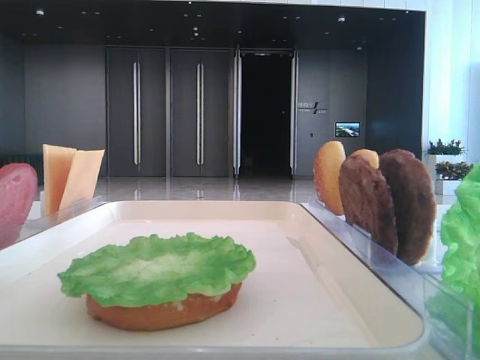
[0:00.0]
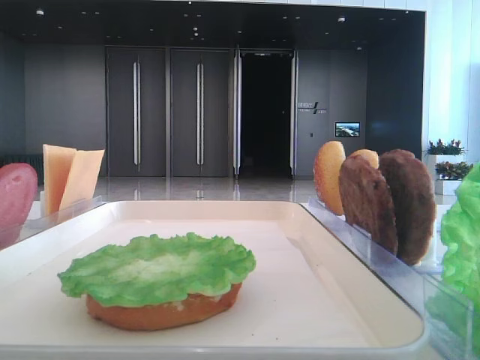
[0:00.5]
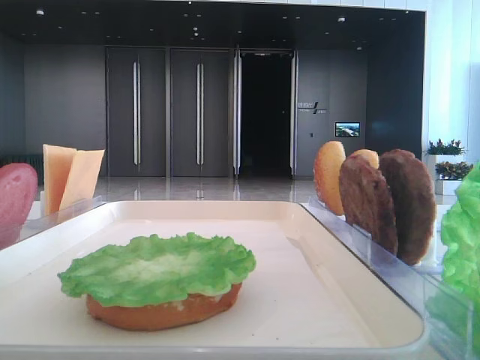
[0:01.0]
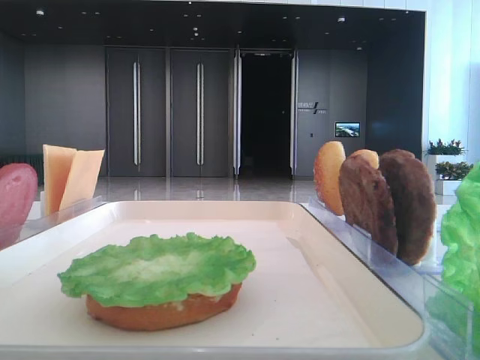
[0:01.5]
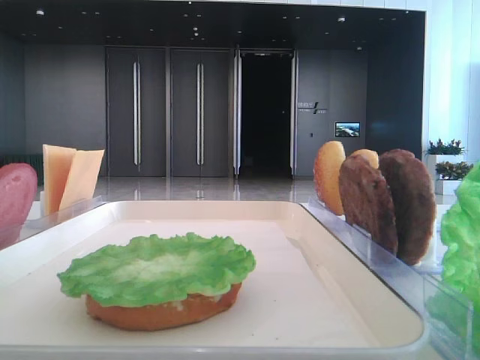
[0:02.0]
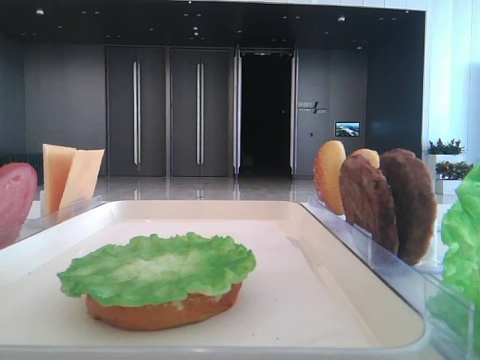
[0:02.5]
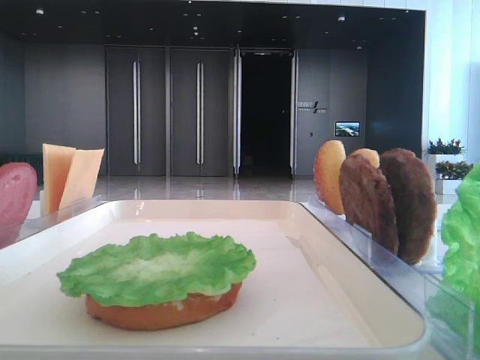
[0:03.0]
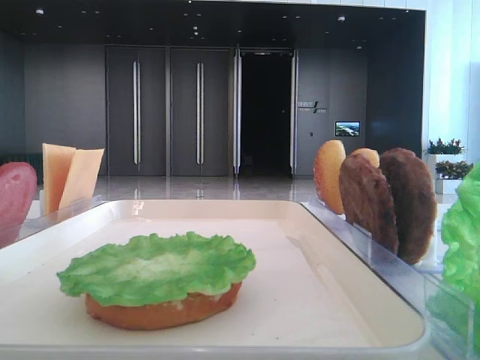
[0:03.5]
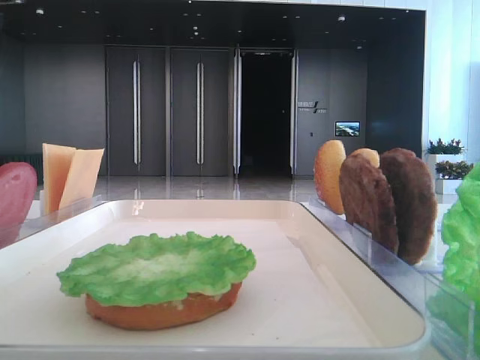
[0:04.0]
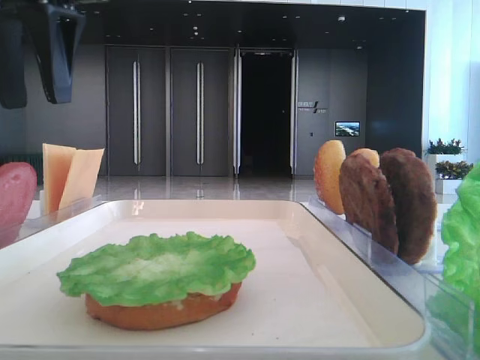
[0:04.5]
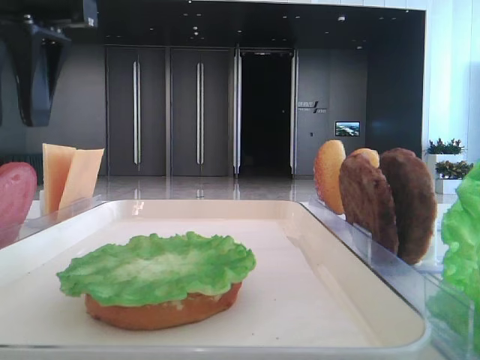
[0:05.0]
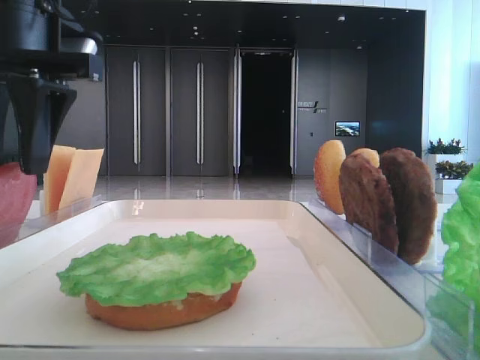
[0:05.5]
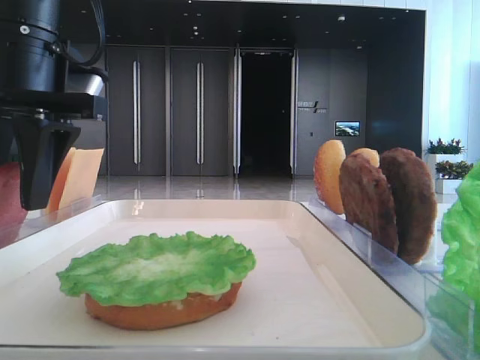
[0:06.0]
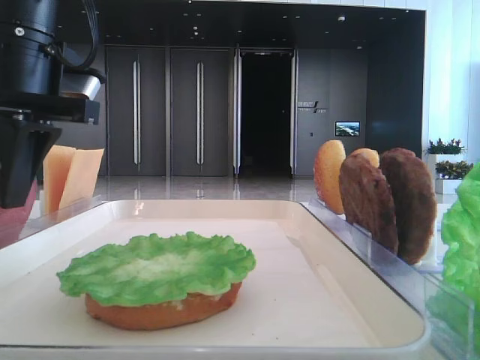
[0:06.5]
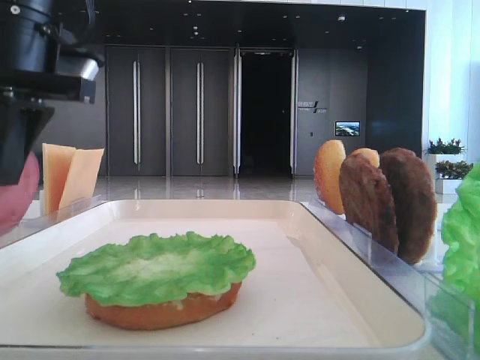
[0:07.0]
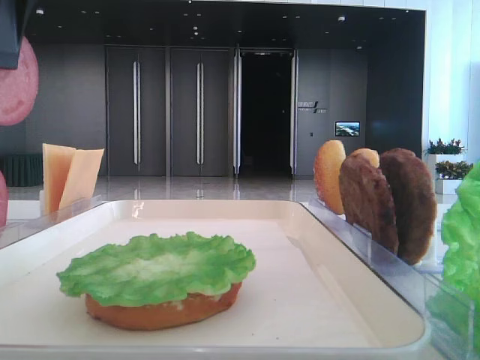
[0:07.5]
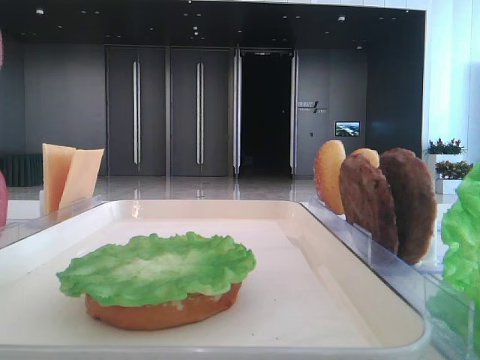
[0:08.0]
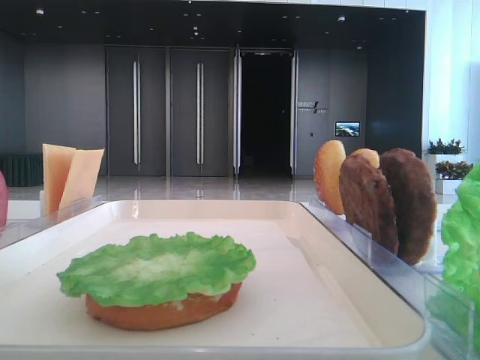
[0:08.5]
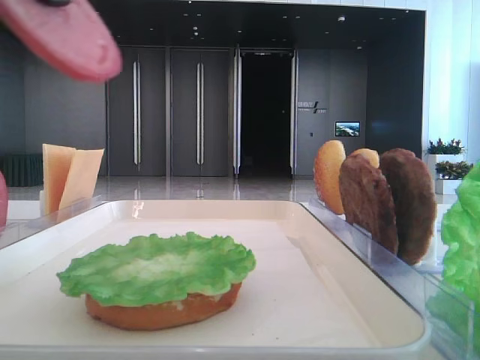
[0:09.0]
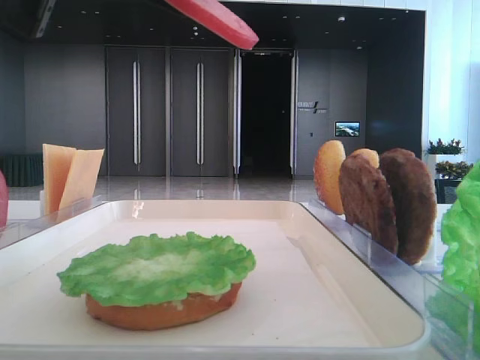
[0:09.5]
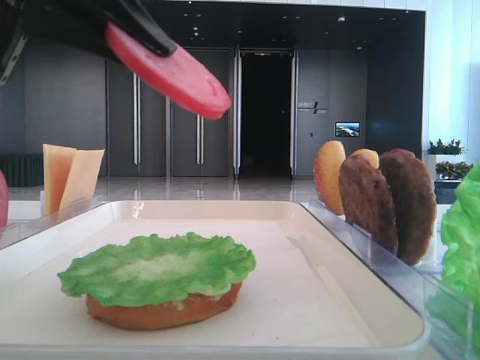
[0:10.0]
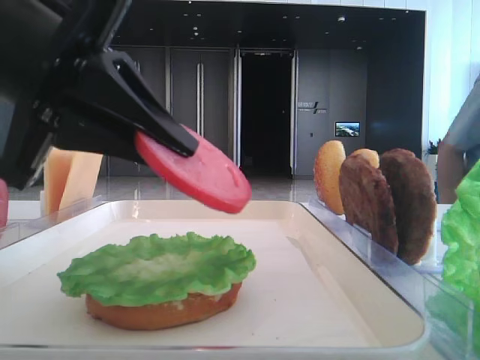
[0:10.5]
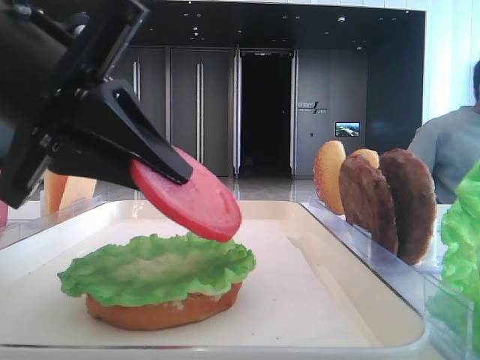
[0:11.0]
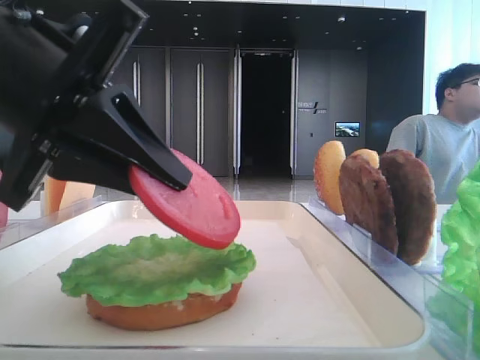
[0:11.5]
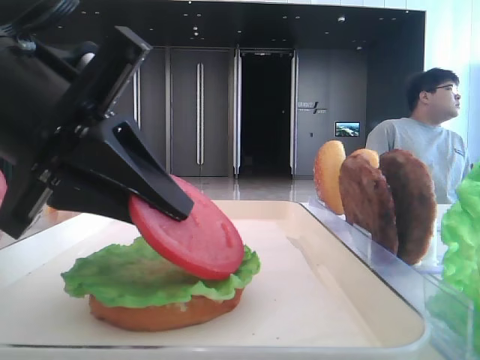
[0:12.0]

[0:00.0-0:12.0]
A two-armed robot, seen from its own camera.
Step, 0:00.0 to 0:06.5: Pick up the tomato slice with the left hand.
0:02.0 to 0:04.0: The left gripper goes about 30 cm forward.
0:04.0 to 0:06.0: The left gripper shifts some 15 cm downward and to the right.
0:06.0 to 0:08.0: The left gripper goes about 15 cm upward and backward, and closes.
0:08.0 to 0:10.0: The left gripper moves downward and to the right, about 10 cm.
0:10.0 to 0:12.0: The left gripper goes approximately 10 cm downward.

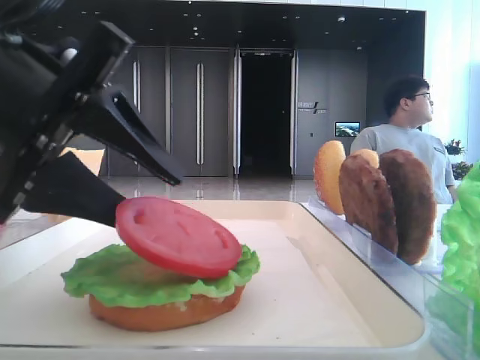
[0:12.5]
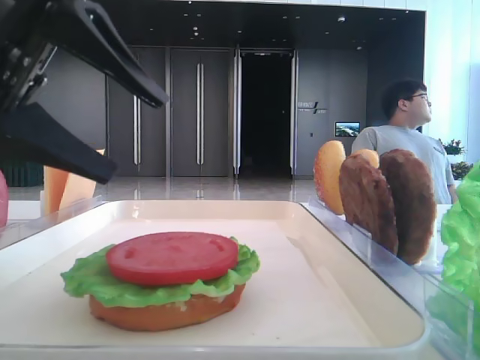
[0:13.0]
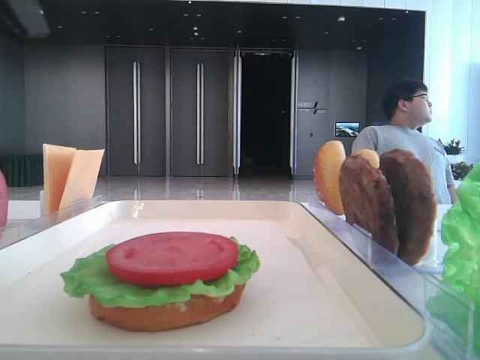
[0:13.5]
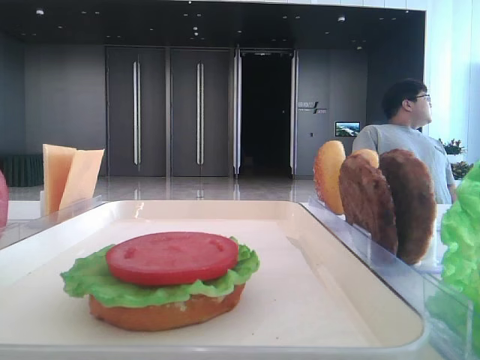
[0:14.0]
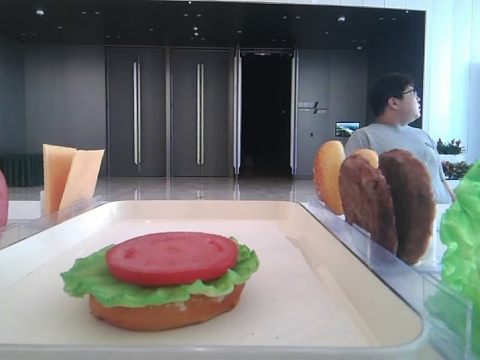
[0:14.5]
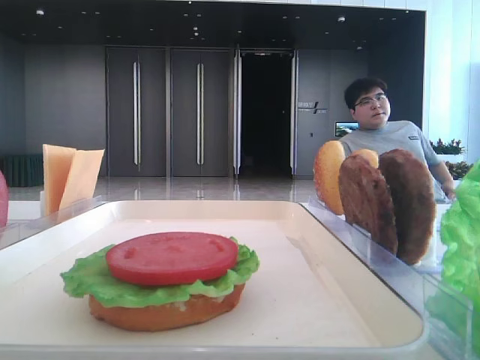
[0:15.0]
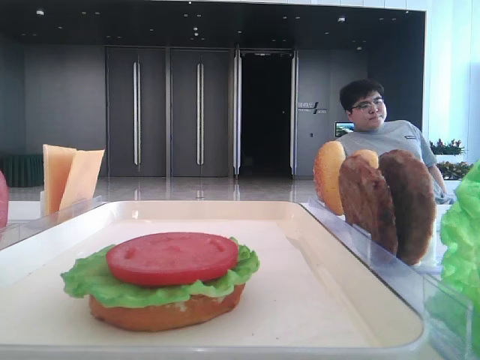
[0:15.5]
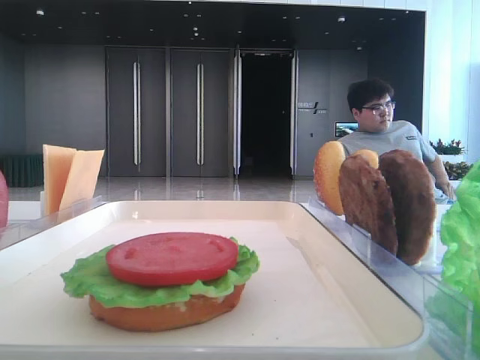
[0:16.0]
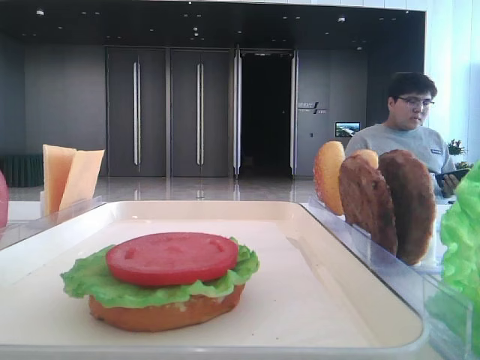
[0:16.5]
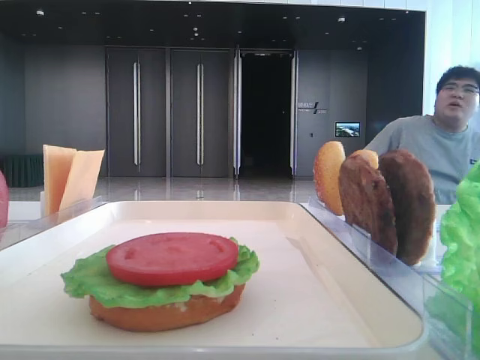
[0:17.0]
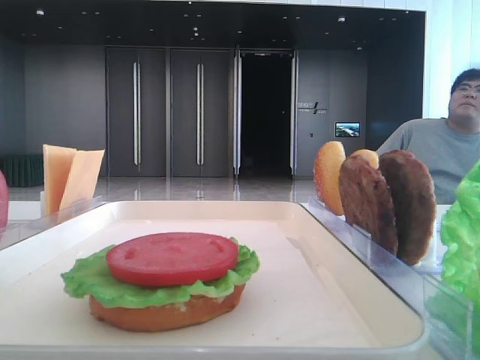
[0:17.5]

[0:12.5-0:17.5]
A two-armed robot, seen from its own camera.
0:12.5 to 0:15.0: The left gripper is displaced to the left, upward and backward by roughly 25 cm.

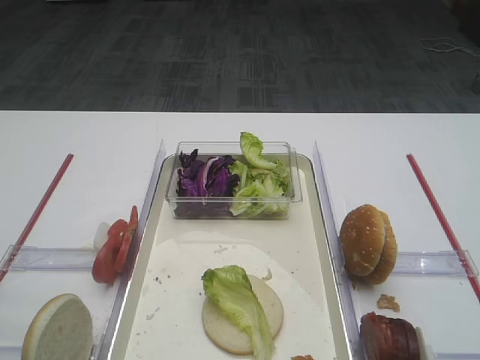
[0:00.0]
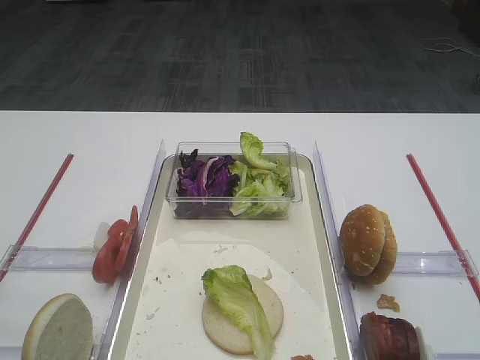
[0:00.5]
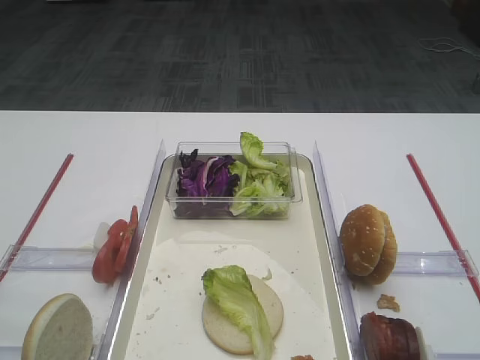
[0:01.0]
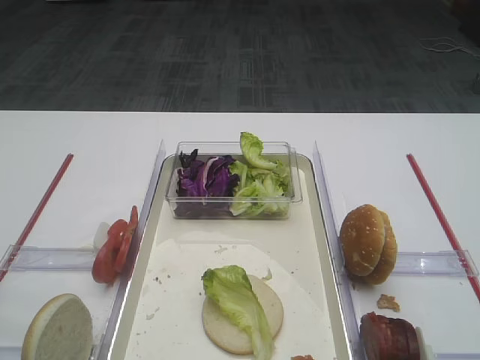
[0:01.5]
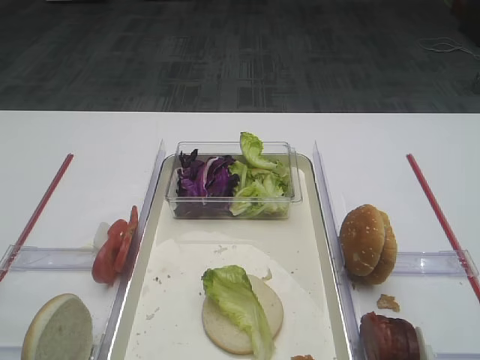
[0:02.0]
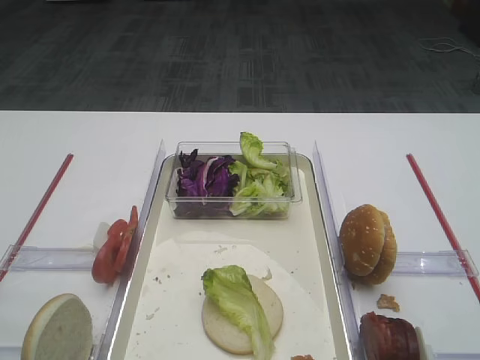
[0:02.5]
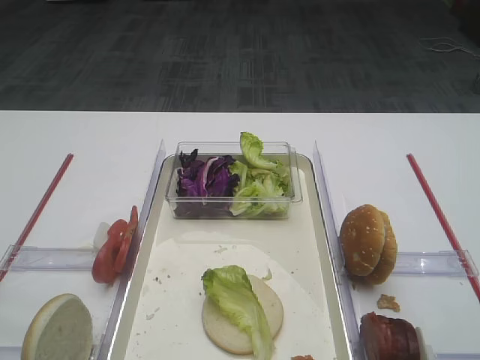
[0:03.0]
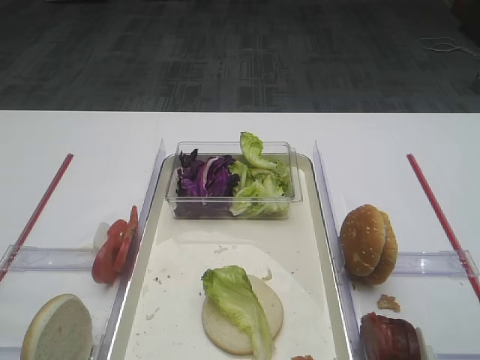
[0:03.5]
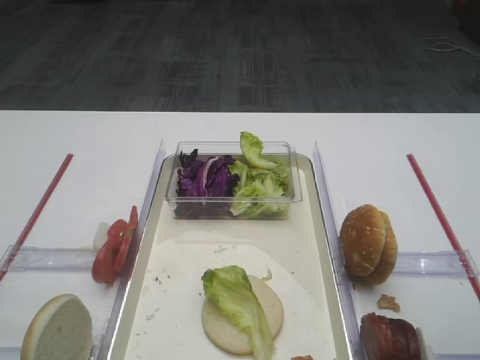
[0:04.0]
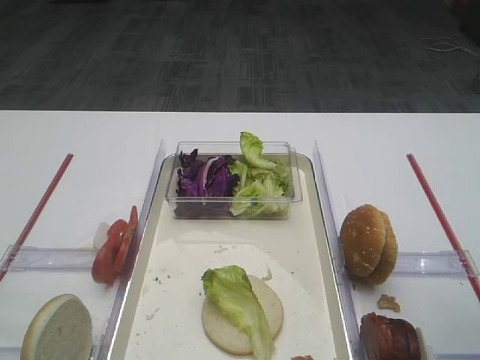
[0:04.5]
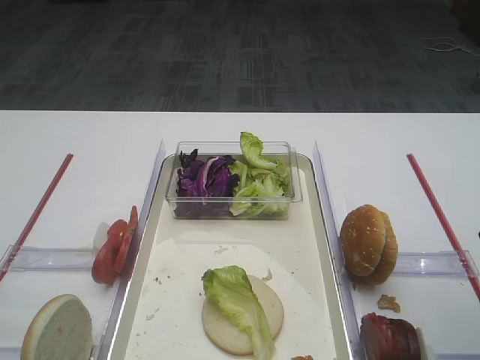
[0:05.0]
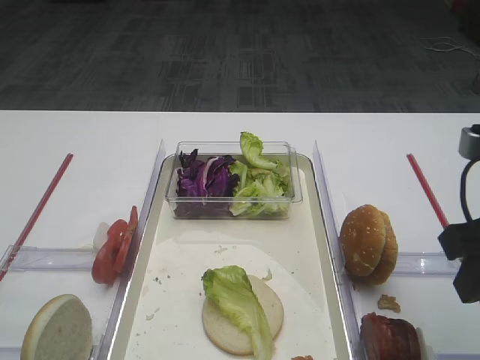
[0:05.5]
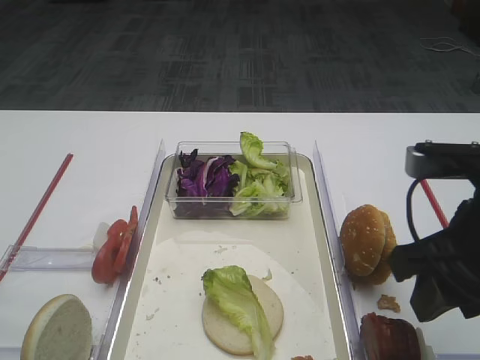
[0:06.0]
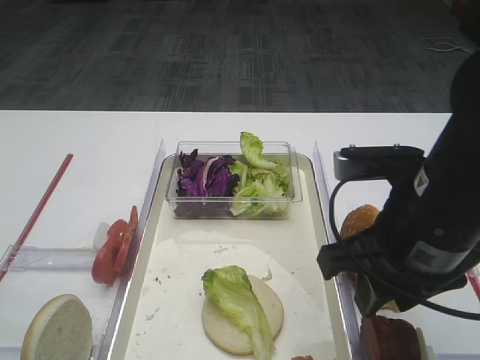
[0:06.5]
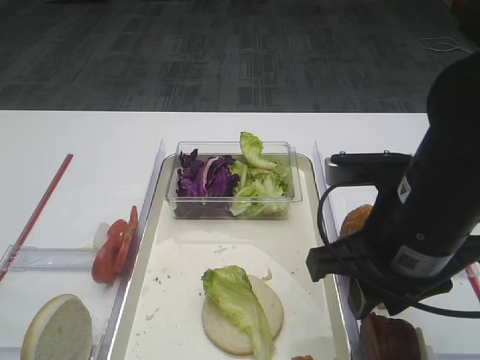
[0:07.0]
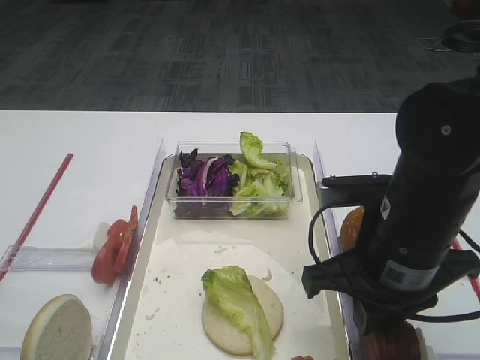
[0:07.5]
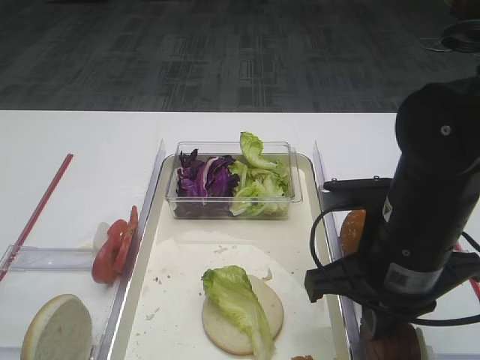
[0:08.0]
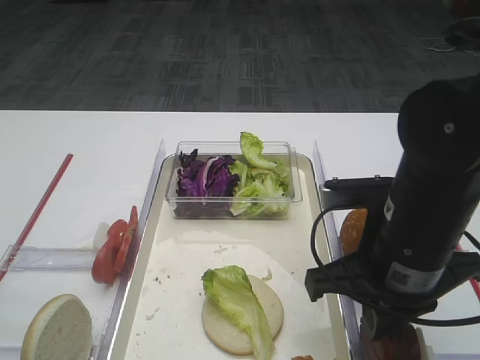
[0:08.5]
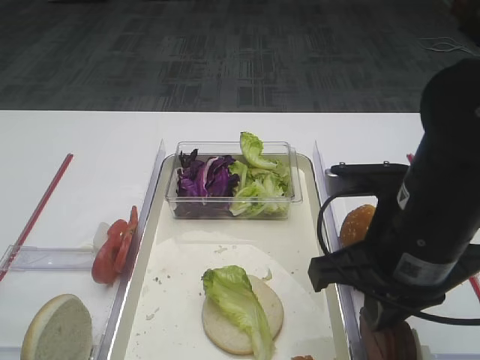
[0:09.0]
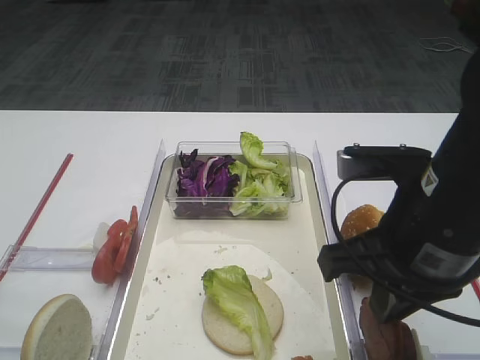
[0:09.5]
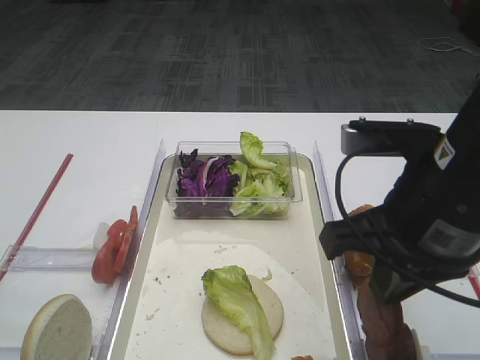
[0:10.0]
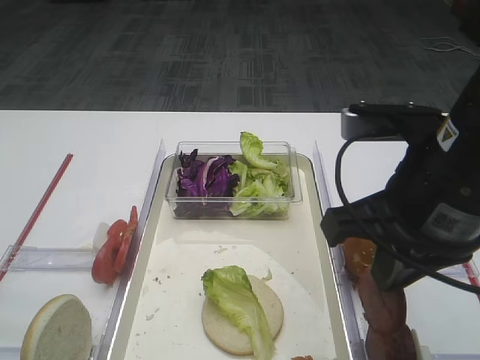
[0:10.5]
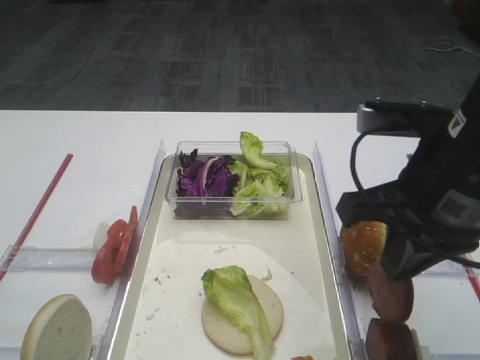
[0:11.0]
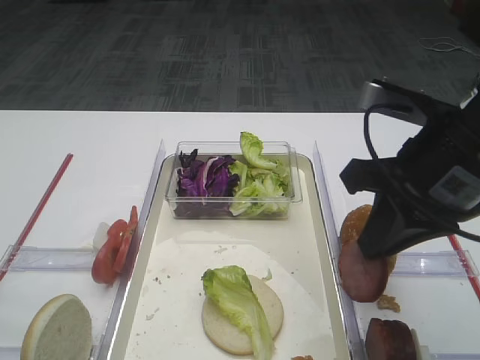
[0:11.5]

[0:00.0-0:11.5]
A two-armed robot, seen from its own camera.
Step, 0:00.0 to 0:11.0: Pick up the cutlet with the right gripper.
0:04.0 to 0:06.0: The right gripper is displaced to the left and forward by roughly 10 cm.
0:06.0 to 0:07.5: The right gripper goes roughly 5 cm to the left, and closes up.
0:07.5 to 0:09.5: The right gripper closes its fingers.
0:09.5 to 0:11.5: The right gripper moves roughly 5 cm.
